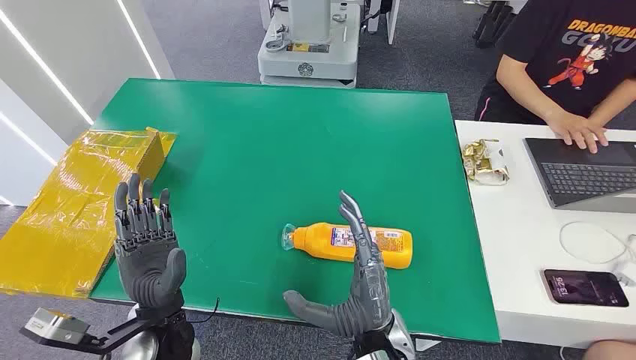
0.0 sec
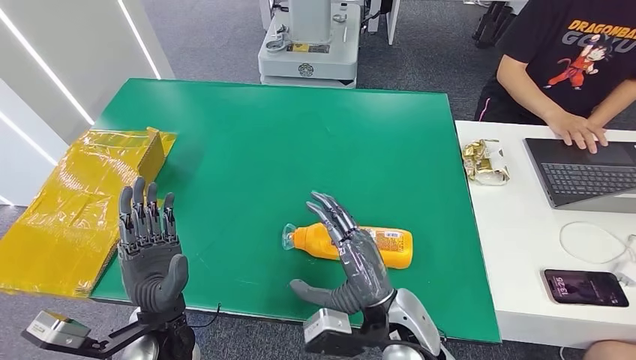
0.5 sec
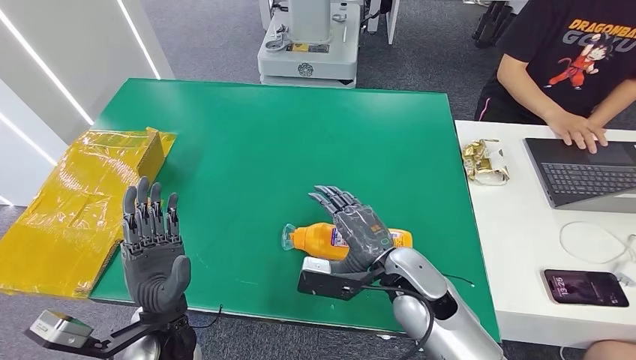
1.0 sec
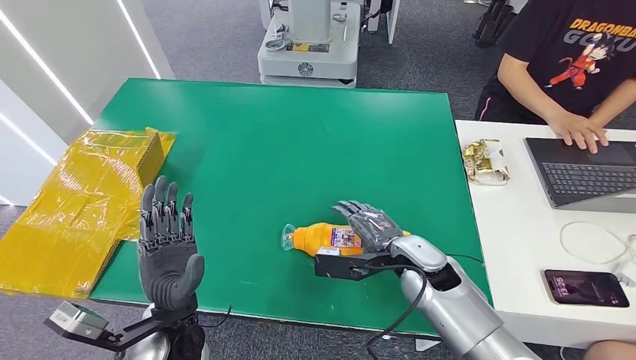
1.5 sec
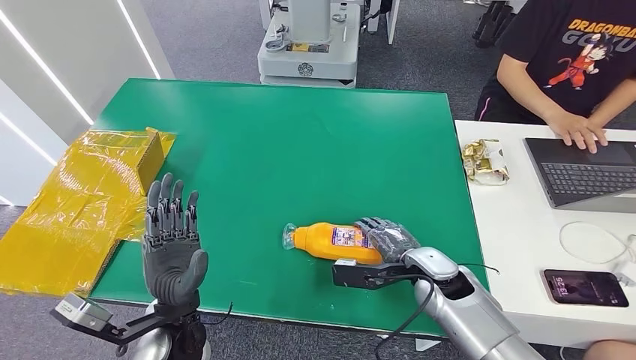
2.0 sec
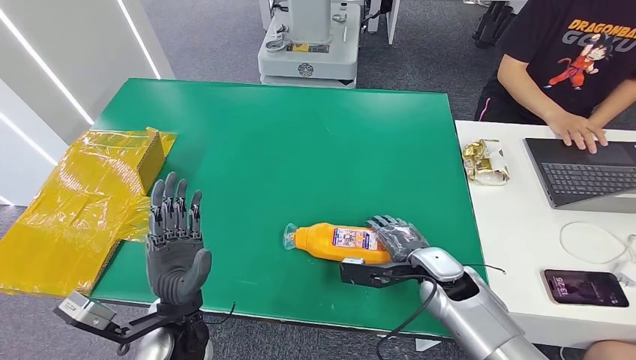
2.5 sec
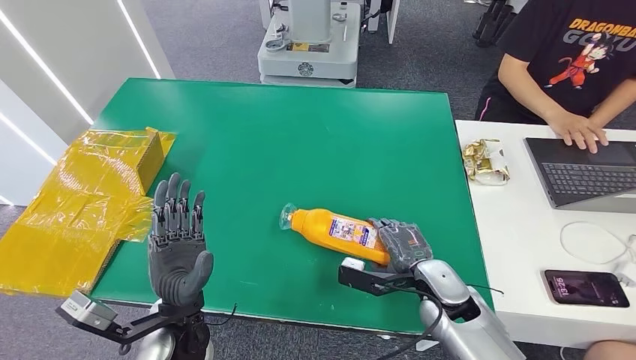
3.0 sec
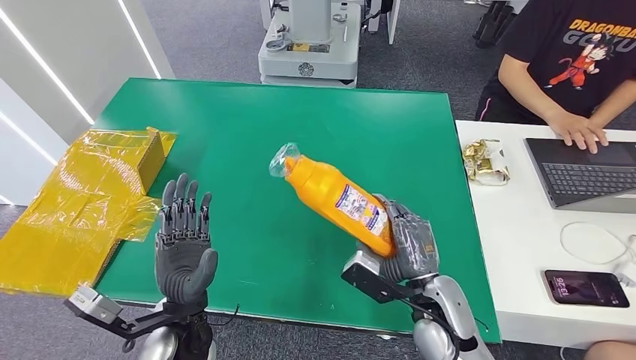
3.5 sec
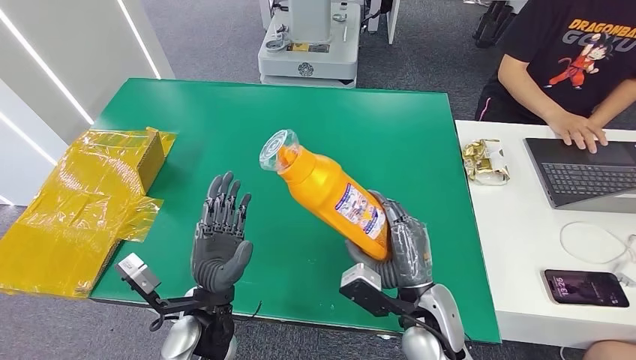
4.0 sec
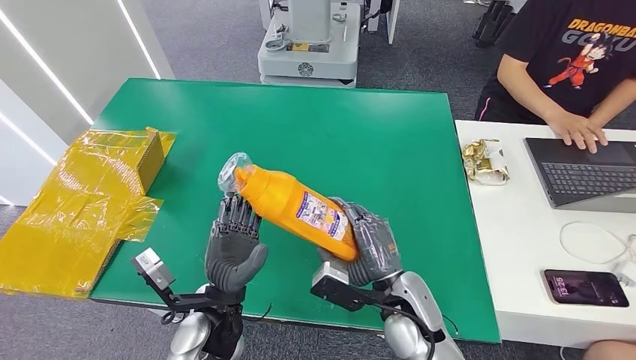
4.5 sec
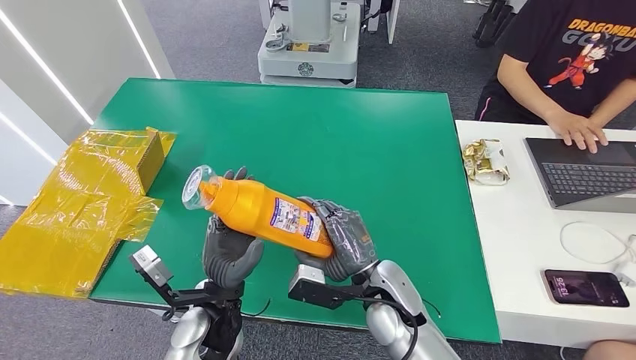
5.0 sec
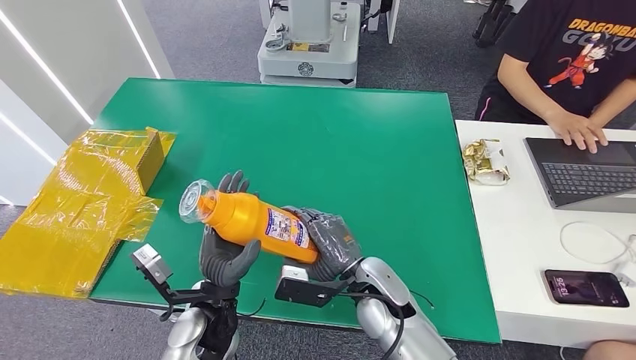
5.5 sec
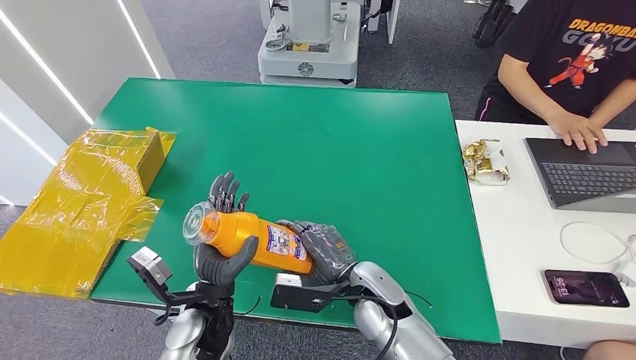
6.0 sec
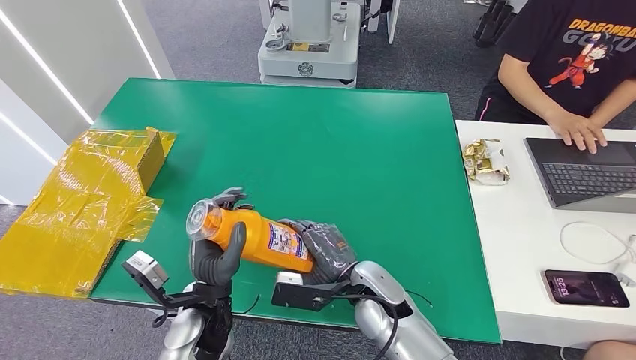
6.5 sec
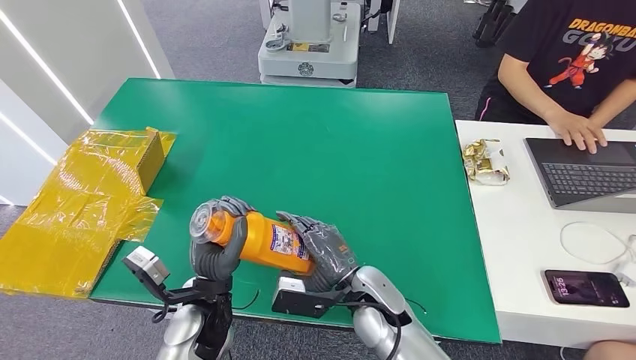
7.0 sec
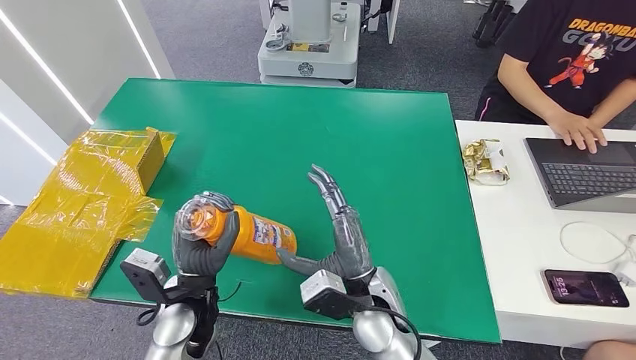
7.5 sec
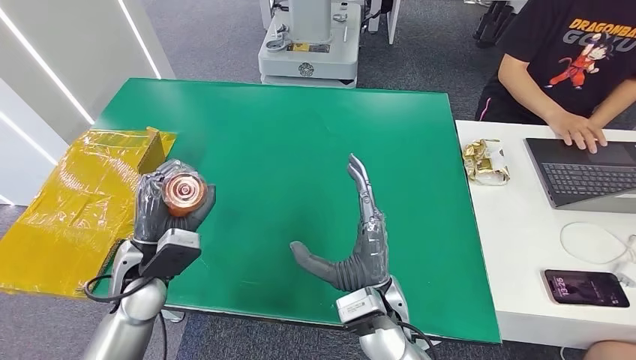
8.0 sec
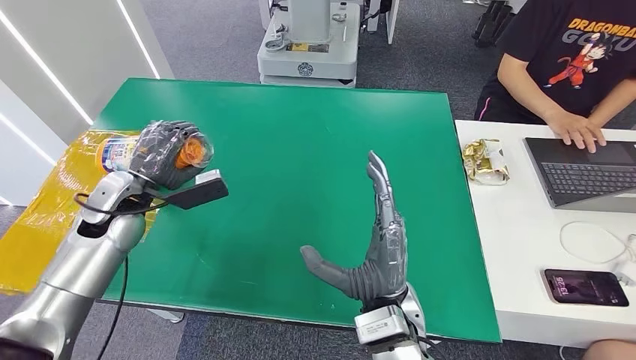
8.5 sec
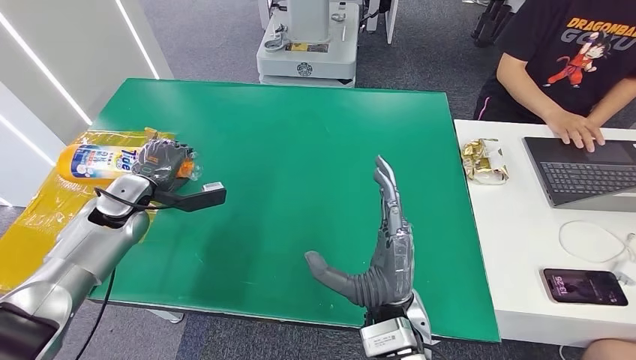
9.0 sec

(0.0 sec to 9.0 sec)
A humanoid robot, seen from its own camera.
Step, 0.0 sec - 3.5 sec: Pick up the bottle from the table.
2.0 sec - 4.5 sec: The right hand moves backward and to the left, approximately 10 cm, while the left hand goes approximately 5 cm to the right.
4.5 sec - 7.0 sec: The right hand heads to the left, covering about 5 cm.
7.0 sec - 9.0 sec: The left hand moves to the left and forward, approximately 25 cm; the right hand moves upward and backward, approximately 10 cm.

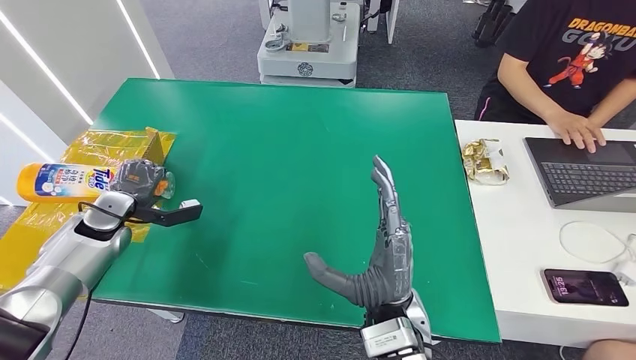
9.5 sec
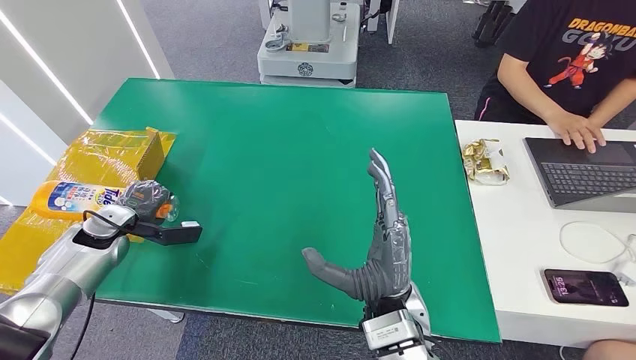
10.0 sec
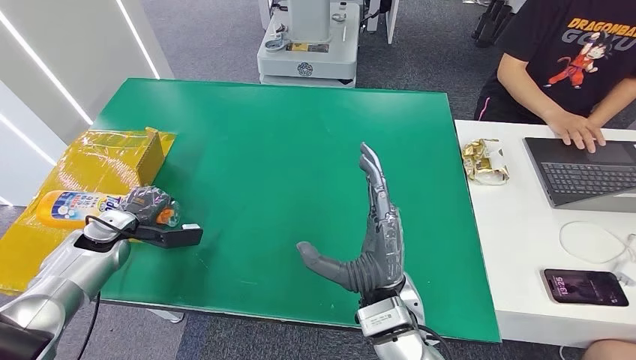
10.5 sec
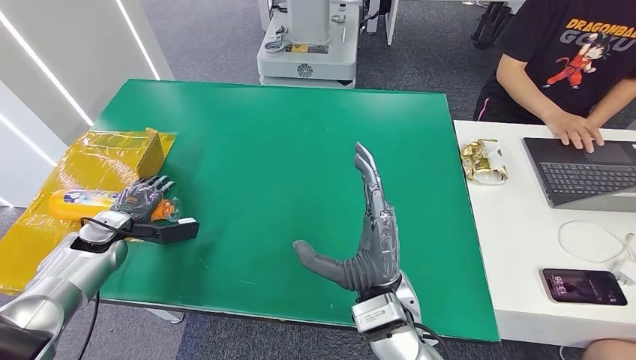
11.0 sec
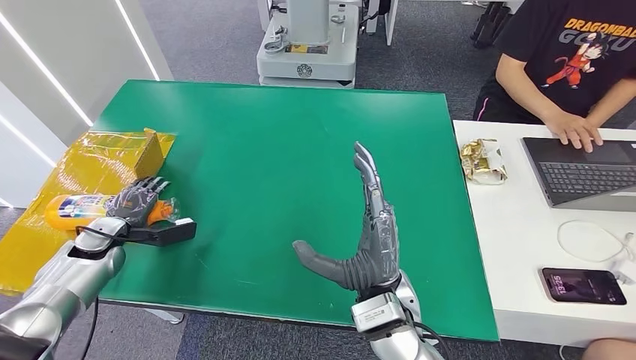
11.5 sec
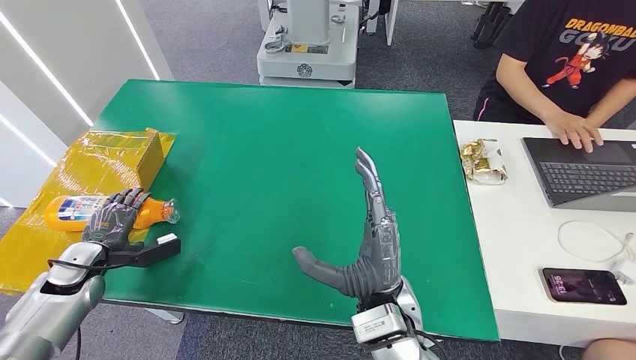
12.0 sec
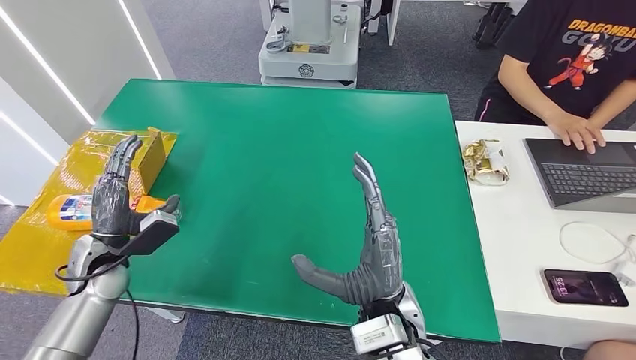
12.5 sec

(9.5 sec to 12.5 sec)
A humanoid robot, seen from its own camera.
Step, 9.5 sec - 12.5 sec: Turn the bottle to the front side.
9.5 sec - 11.0 sec: The hands move only a little.
11.0 sec - 12.5 sec: The left hand goes some 10 cm to the right and backward.
